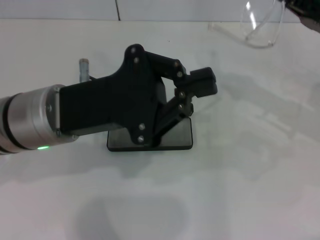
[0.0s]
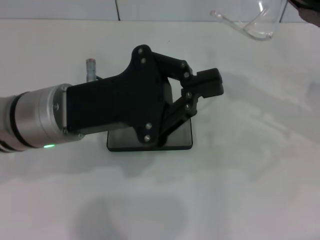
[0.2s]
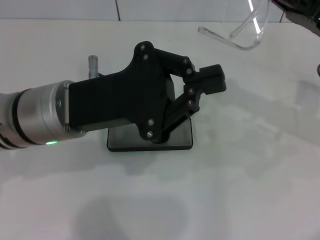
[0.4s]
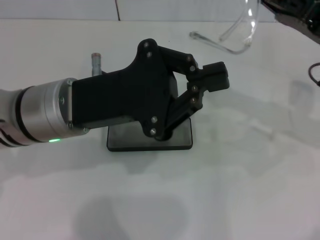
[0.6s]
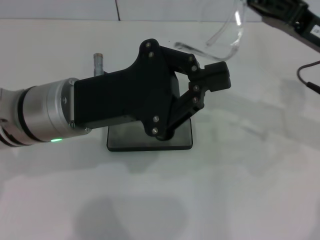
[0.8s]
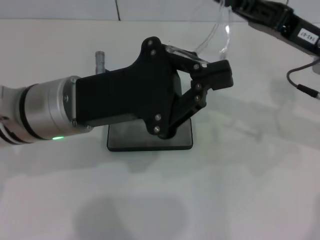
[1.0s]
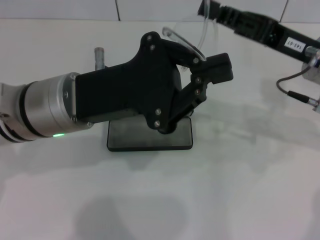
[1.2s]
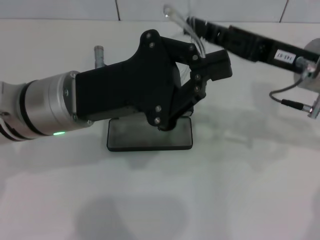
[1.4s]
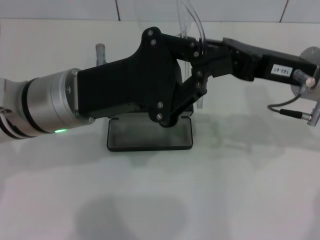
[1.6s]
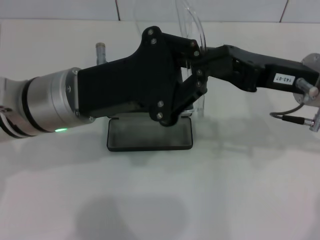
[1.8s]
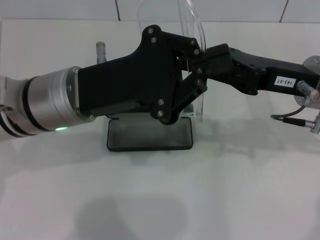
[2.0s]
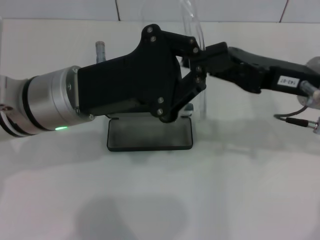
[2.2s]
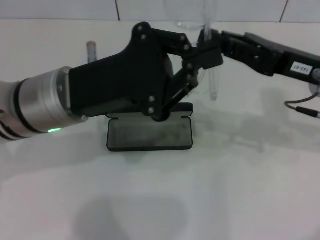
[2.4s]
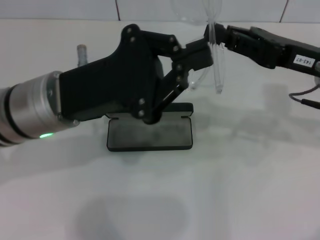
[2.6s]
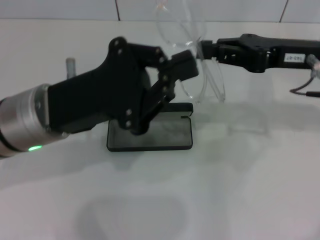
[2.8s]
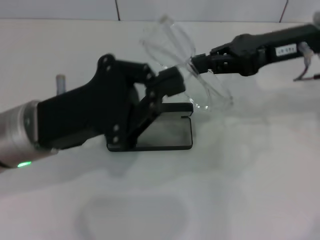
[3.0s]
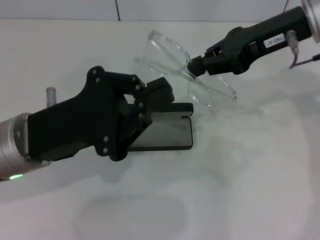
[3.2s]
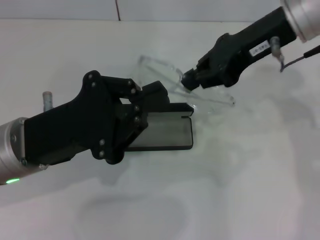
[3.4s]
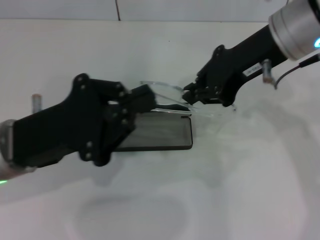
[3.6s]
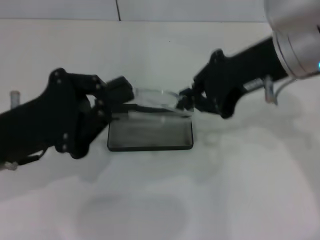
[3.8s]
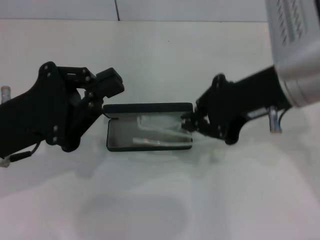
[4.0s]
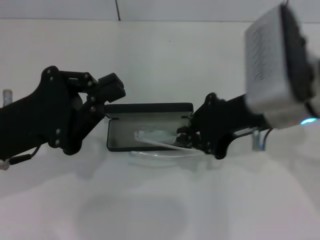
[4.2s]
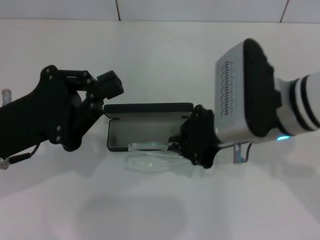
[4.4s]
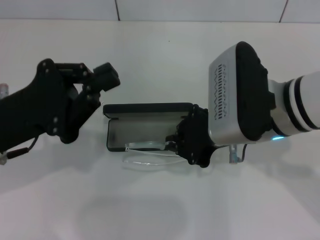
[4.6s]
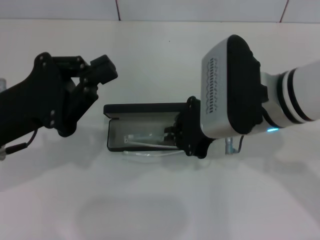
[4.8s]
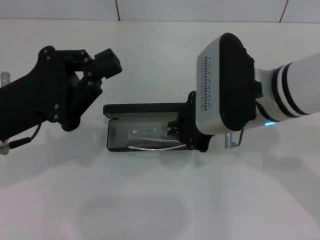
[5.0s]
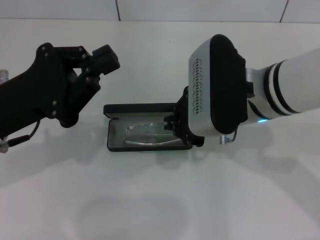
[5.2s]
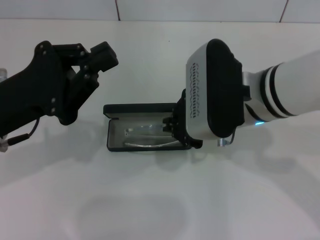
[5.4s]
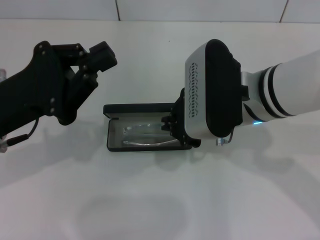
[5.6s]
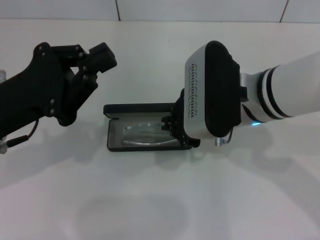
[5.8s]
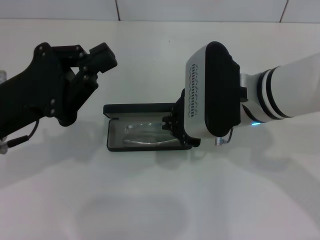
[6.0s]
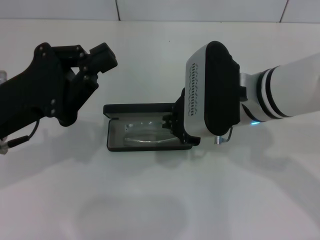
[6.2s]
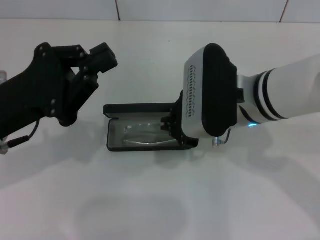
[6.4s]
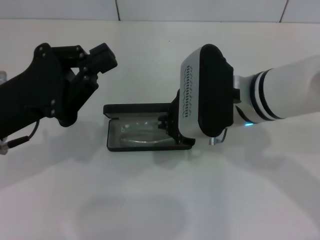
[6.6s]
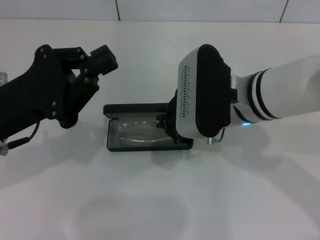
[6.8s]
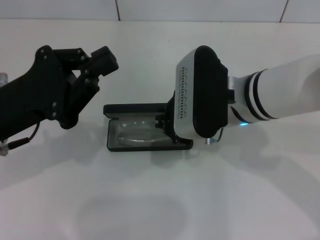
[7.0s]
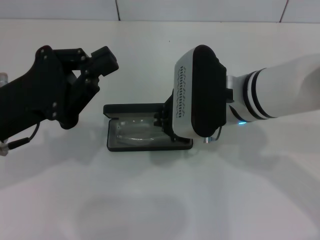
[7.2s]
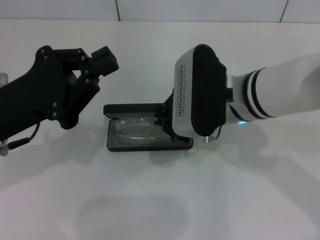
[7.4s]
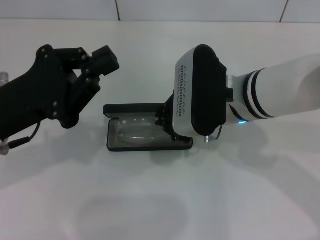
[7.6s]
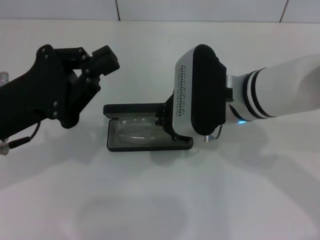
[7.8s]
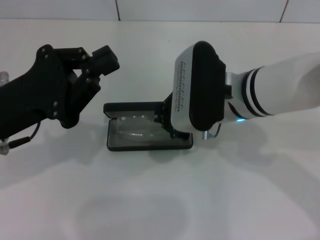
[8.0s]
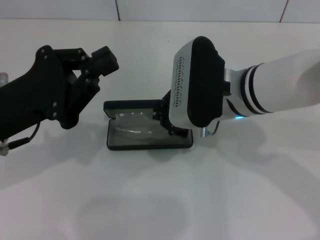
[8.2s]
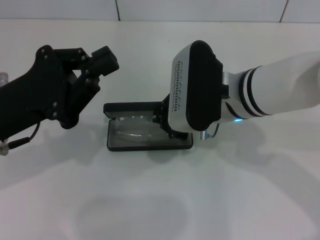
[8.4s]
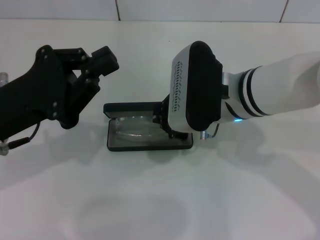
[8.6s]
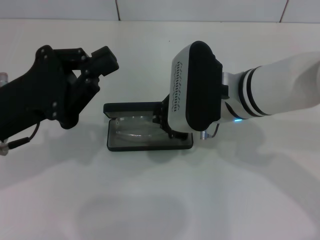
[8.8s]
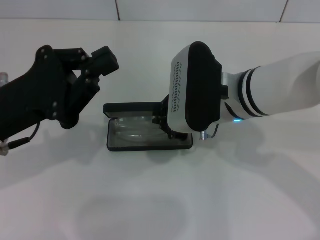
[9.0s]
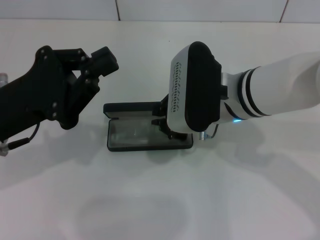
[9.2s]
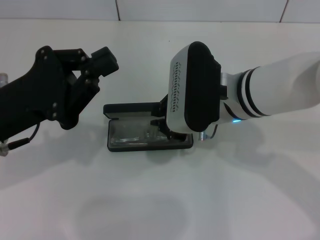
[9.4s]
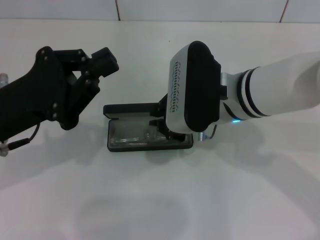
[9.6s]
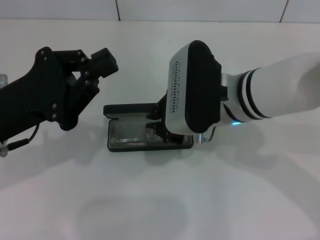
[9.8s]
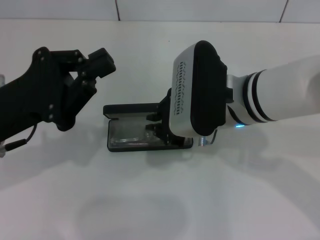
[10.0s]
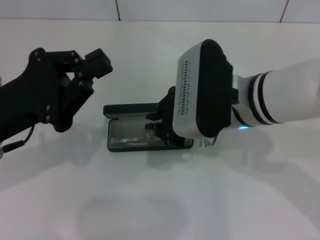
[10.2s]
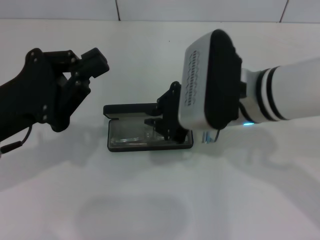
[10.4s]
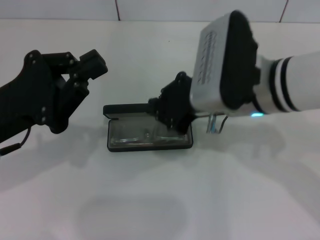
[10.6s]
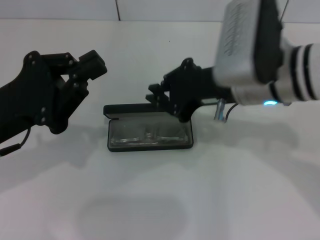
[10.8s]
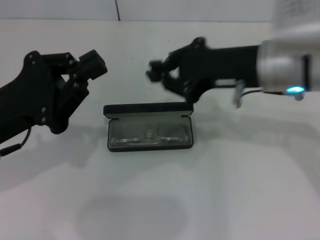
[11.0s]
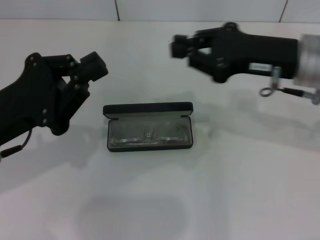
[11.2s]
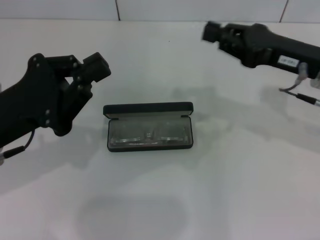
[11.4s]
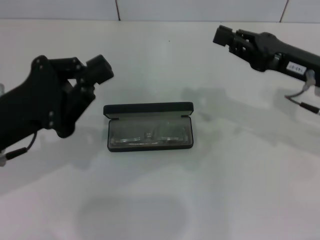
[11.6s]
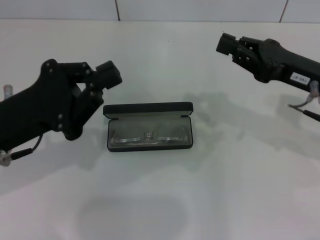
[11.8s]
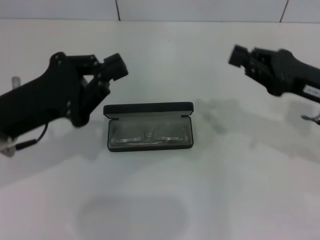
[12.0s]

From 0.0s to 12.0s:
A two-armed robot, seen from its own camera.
Step, from 0.0s to 2.2s: Lift the glasses with your right hand.
Step, from 2.4s to 9.2s: Put the glasses into the case with your right hand.
From 0.0s to 1.6s: The right gripper travels to the left by approximately 10 cm.
From 1.6s to 3.0s: The left gripper changes place by about 5 cm; the right gripper is displaced upward by roughly 5 cm.
From 3.0s to 4.4s: The left gripper moves to the left, roughly 5 cm, while the right gripper travels to the left and backward by roughly 10 cm.
From 6.0s to 7.6s: There are only small adjustments of the grippers.
From 7.6s to 9.0s: Both grippers stay put.
From 9.0s to 10.4s: The grippers move only a little.
From 10.4s to 12.0s: The right gripper travels to the right by about 15 cm.

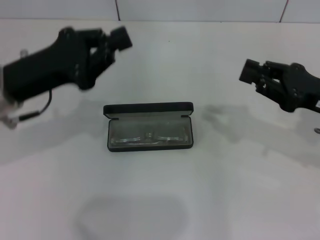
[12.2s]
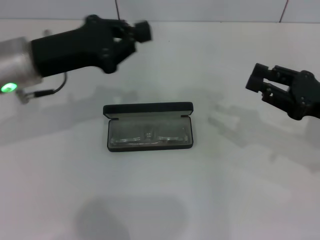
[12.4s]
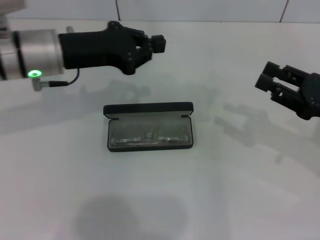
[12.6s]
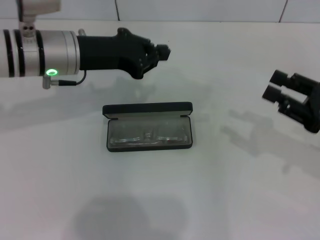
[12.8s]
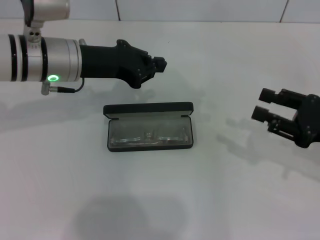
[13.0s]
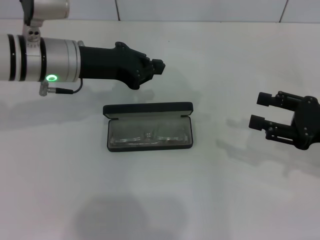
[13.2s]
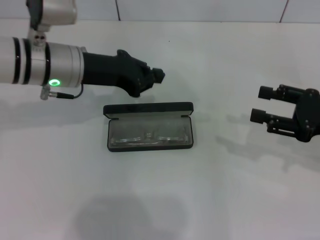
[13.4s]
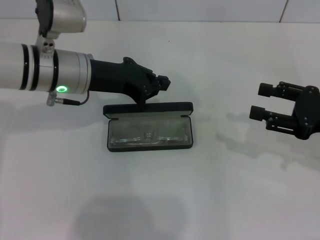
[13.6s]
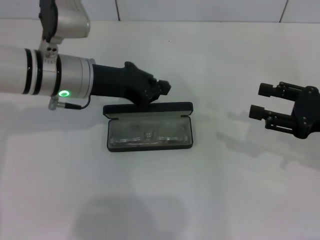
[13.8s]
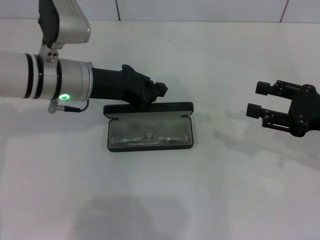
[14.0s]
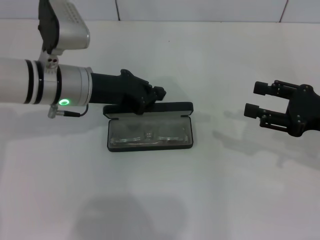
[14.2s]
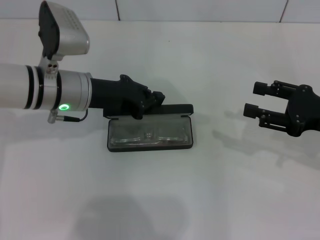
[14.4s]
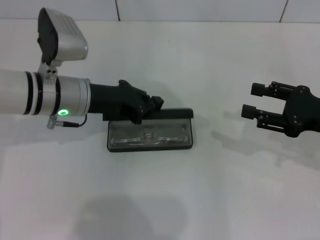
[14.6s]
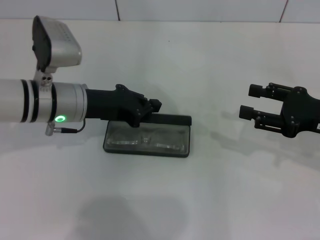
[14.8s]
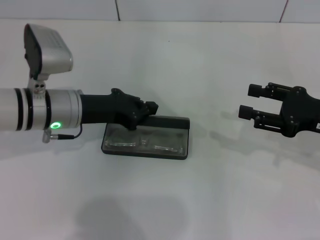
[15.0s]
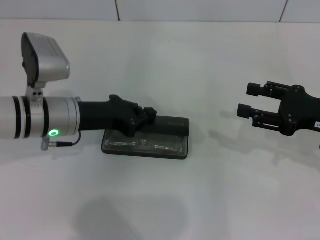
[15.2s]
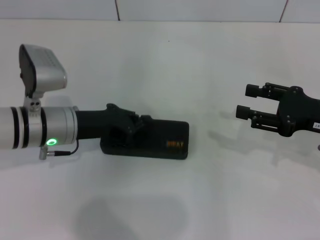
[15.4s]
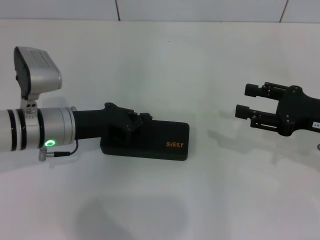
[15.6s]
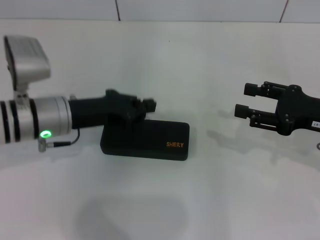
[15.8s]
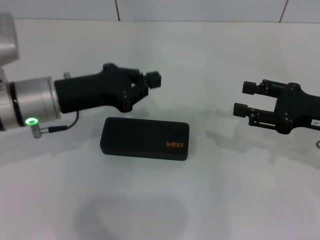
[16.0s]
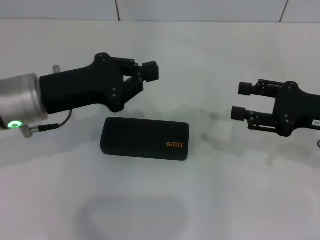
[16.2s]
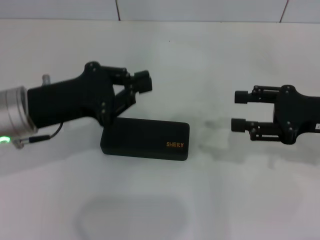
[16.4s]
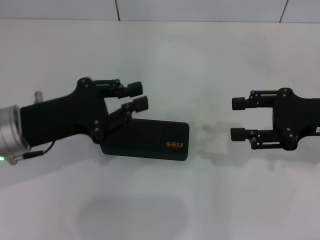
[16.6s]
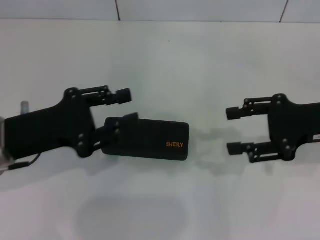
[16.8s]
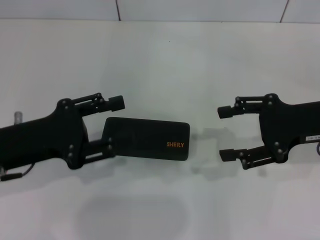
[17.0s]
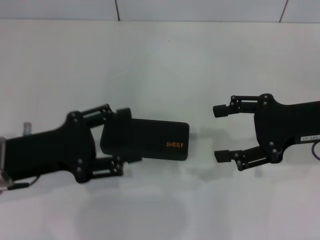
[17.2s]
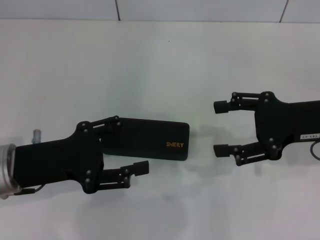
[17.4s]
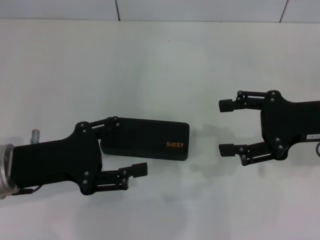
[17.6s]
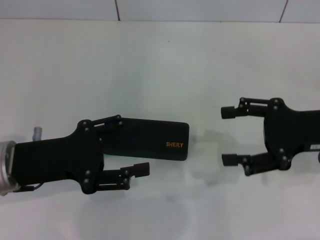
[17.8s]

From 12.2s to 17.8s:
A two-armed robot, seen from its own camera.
Step, from 12.2s to 15.2s: Close the glasses case with your left hand.
From 12.2s to 13.6s: The right gripper opens up. The left gripper shifts approximately 10 cm forward and to the right.
From 13.6s to 15.0s: The left gripper ends up some 5 cm from where it was.
From 15.0s to 16.4s: The left gripper goes about 5 cm backward.
From 16.4s to 17.8s: The left gripper shifts by approximately 5 cm, and opens.

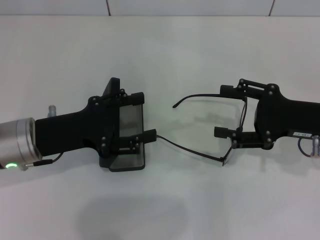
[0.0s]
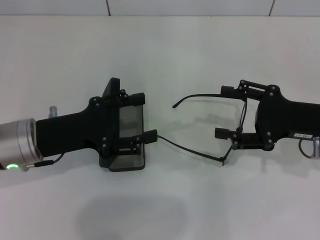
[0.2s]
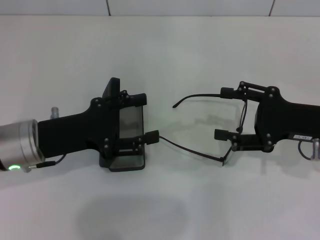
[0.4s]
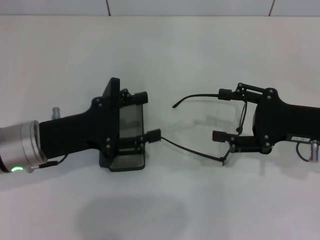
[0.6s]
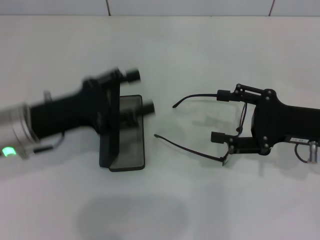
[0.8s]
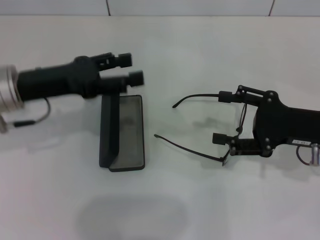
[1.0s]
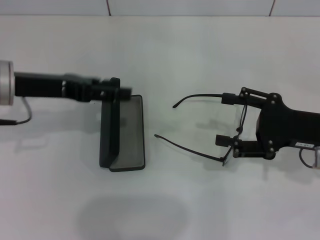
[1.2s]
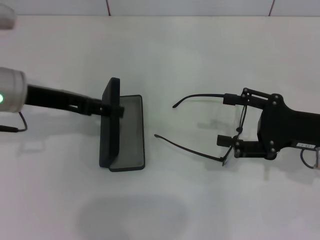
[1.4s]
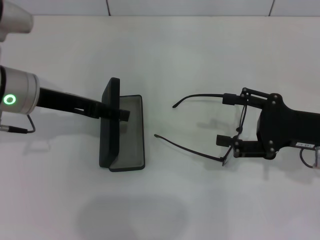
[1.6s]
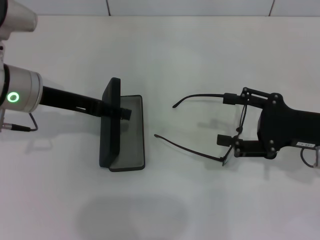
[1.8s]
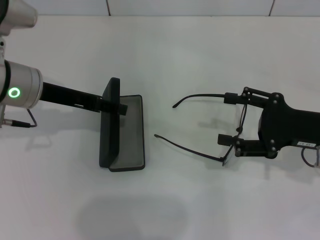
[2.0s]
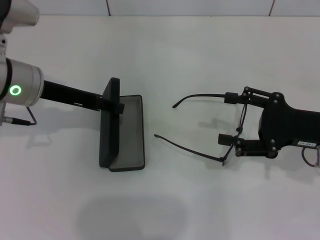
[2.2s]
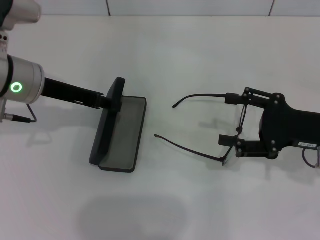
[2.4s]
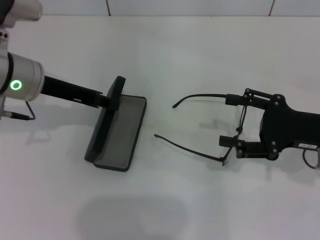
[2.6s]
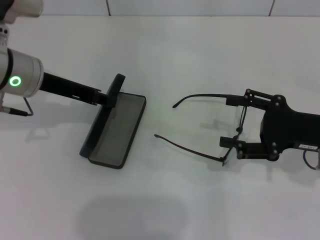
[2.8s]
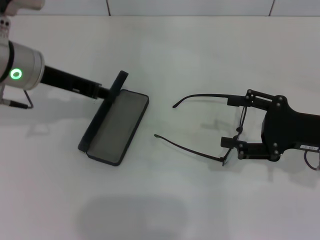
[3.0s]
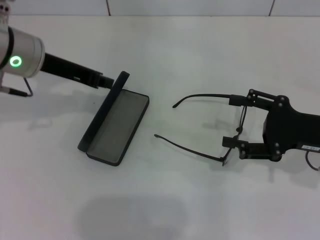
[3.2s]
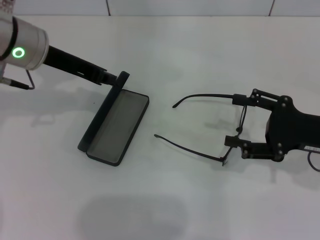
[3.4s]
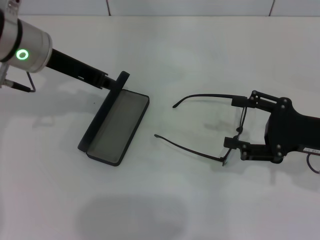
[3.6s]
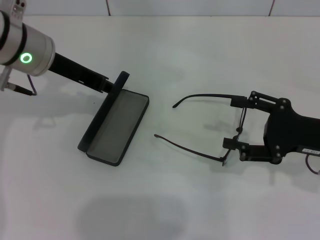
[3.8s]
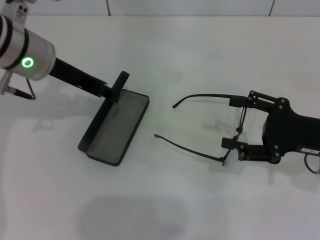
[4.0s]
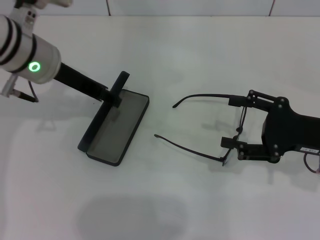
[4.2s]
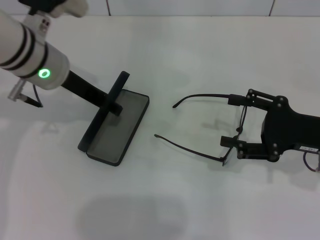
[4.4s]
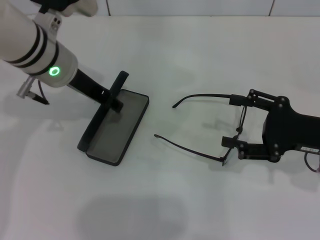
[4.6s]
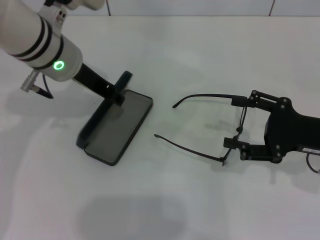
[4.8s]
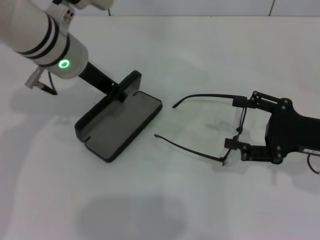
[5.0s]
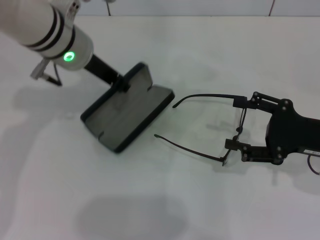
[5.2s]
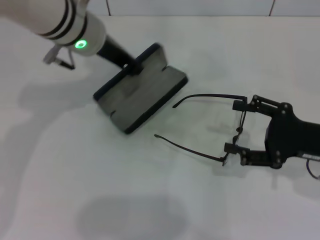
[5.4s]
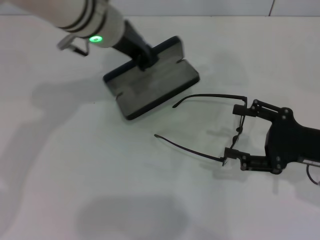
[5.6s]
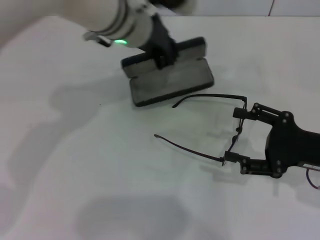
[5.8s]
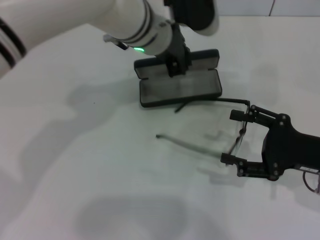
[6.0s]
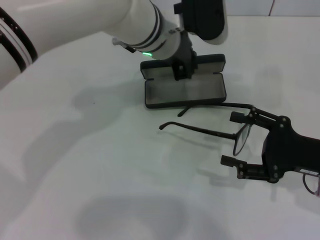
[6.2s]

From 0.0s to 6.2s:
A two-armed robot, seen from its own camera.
Step, from 0.0s to 4.6s: Grab the glasses case with your left hand.
From 0.0s to 1.6s: The left gripper moves forward and upward, some 10 cm.
From 1.6s to 3.2s: The left gripper shifts by roughly 5 cm, and closes its fingers.
From 3.2s to 4.6s: The left gripper opens up.
From 4.6s to 6.2s: The left gripper is displaced to the right by approximately 15 cm, and closes.
